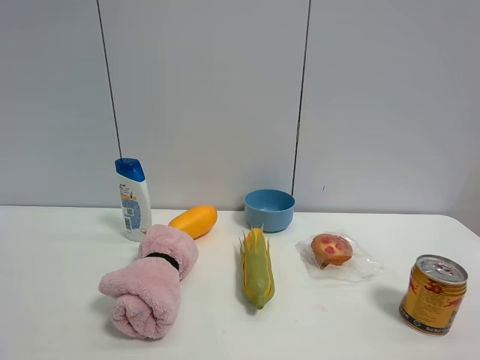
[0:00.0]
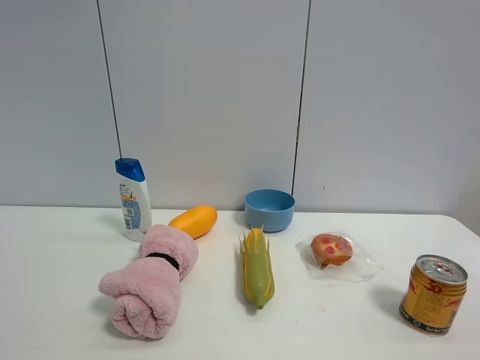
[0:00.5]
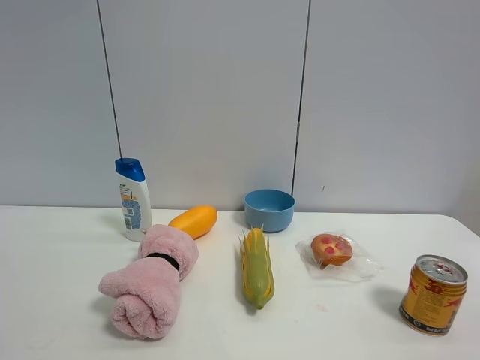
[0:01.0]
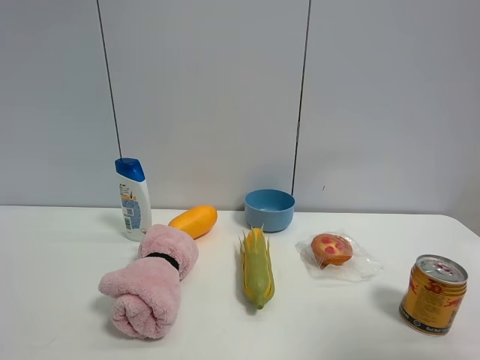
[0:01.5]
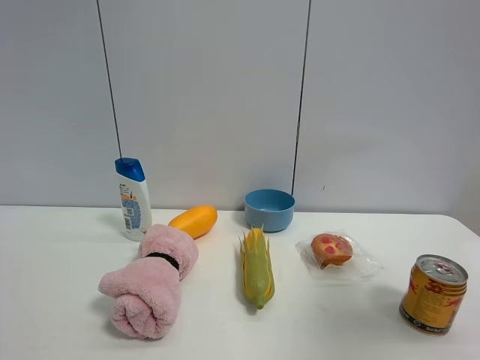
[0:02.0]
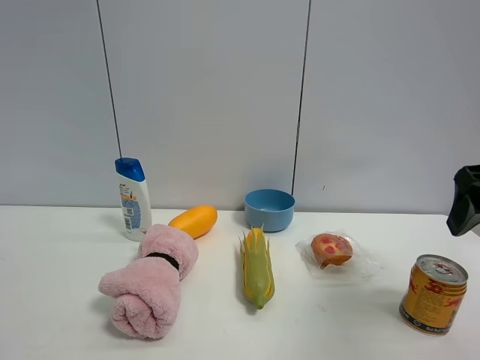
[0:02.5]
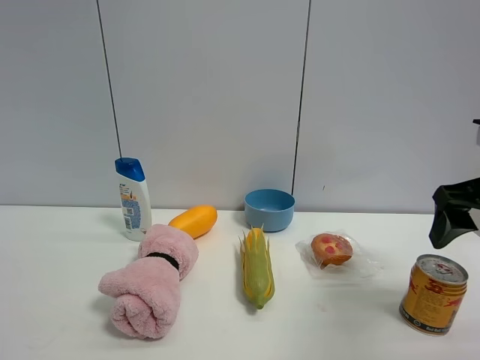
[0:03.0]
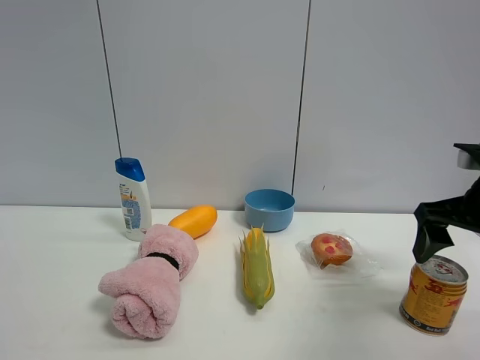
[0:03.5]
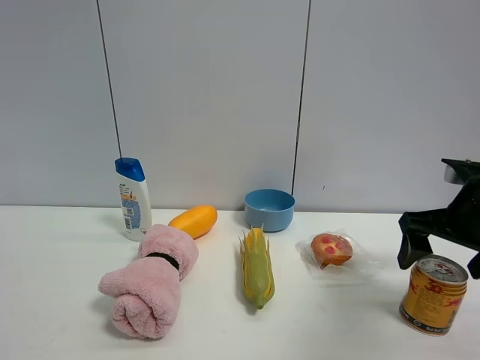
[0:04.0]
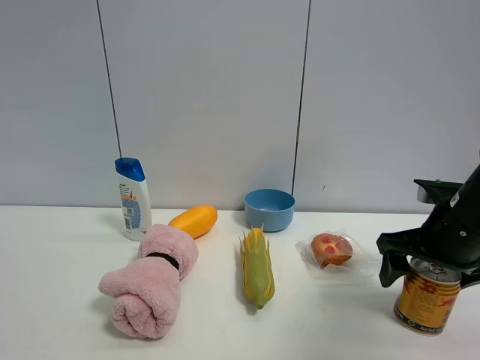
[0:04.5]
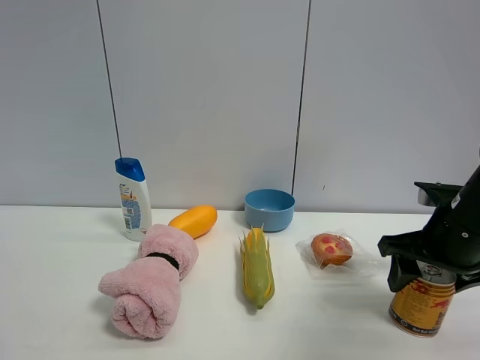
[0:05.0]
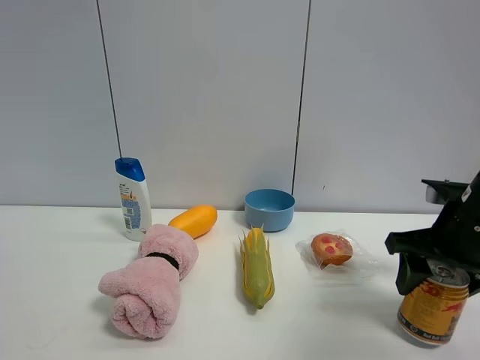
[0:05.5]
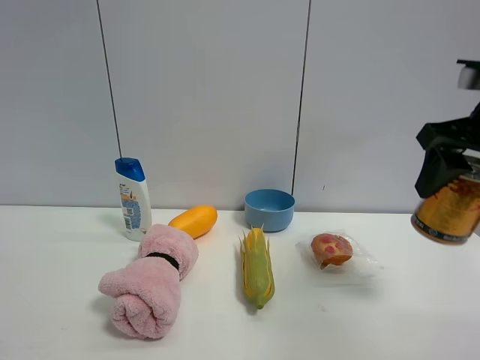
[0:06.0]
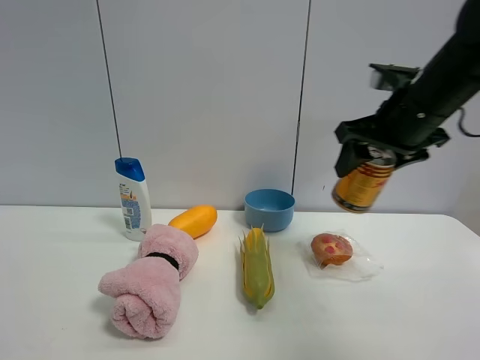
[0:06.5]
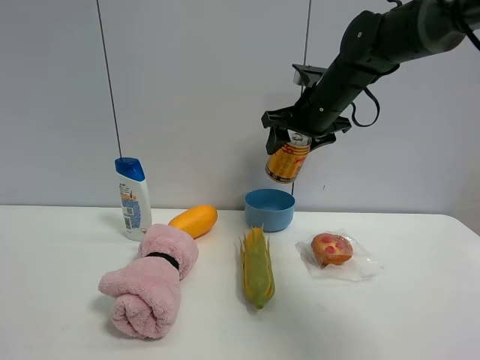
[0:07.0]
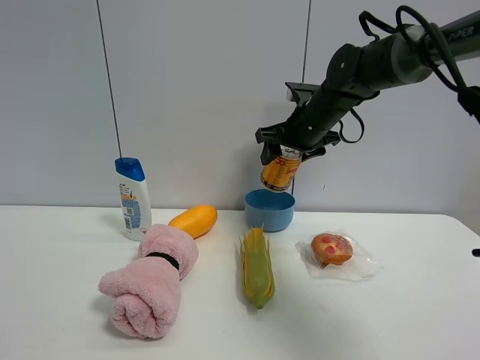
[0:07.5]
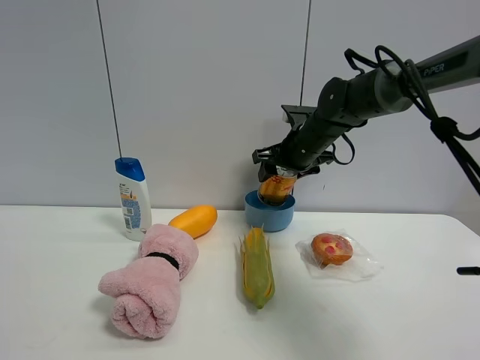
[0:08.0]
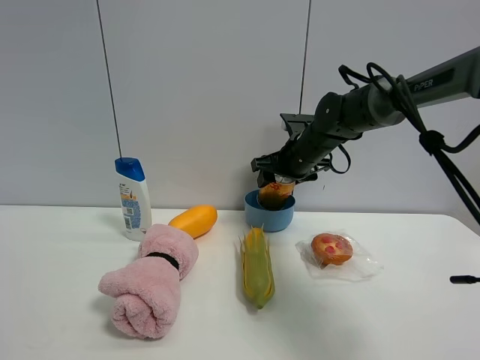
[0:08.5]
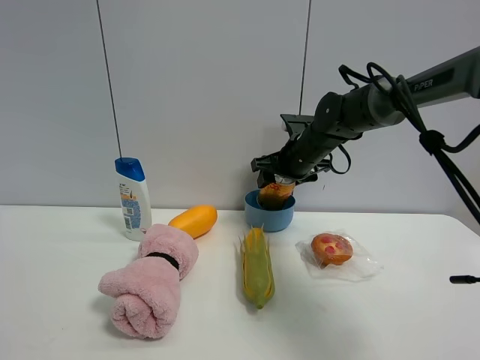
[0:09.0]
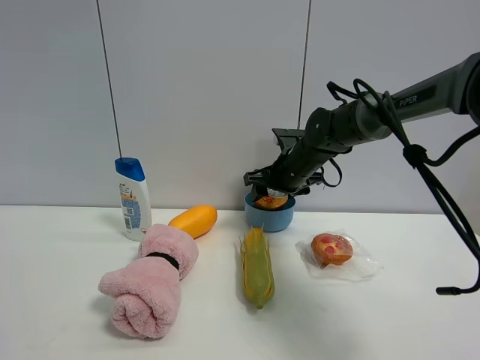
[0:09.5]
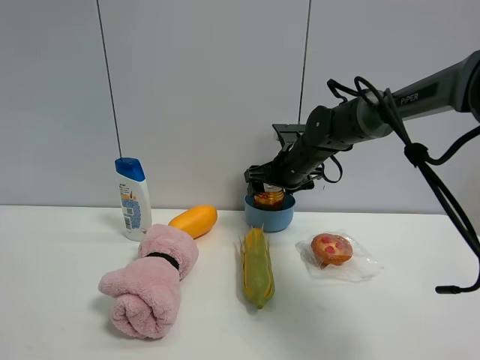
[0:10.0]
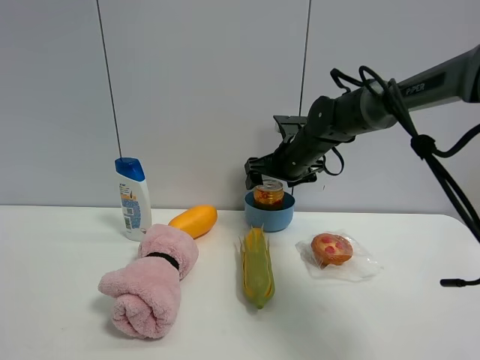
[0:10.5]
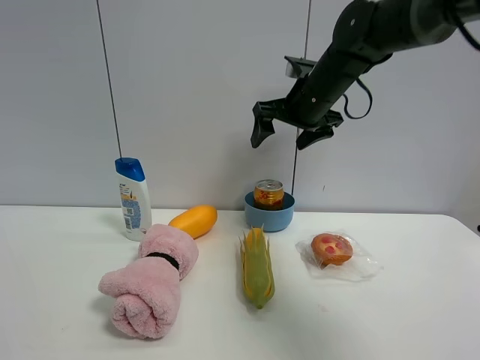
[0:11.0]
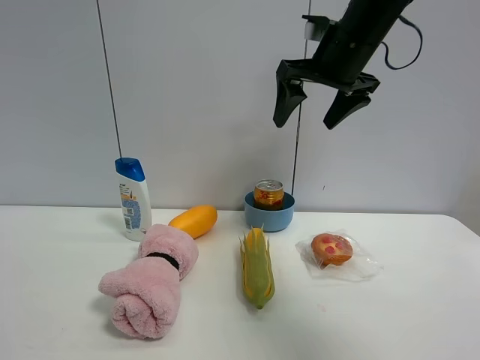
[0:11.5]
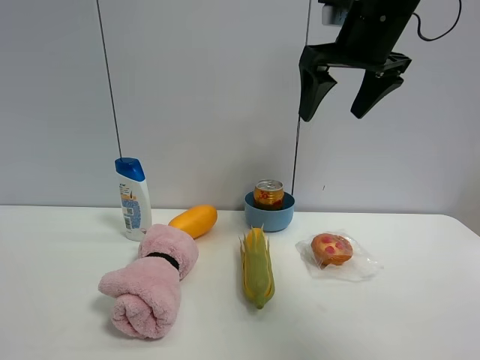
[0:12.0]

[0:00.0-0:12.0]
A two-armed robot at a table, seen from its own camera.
Task of the whole recording: the gripper move the object.
Step, 0:00.0 to 0:05.0: Grasp the red bull with the right gripper.
Step, 0:05.5 to 0:10.5: Place the red bull into the blue bowl with the right gripper.
0:00.0 to 0:02.0: The right gripper travels forward by roughly 20 cm.
0:02.0 to 0:04.0: The right gripper moves downward and forward, some 15 cm.
0:04.0 to 0:06.0: The right gripper goes some 10 cm upward, and closes its fingers.
0:06.0 to 0:08.0: The right gripper travels forward, to the left and downward by some 30 cm.
0:08.0 to 0:10.0: The right gripper opens up.
0:10.0 to 0:12.0: The right gripper moves upward and backward, roughly 25 cm.

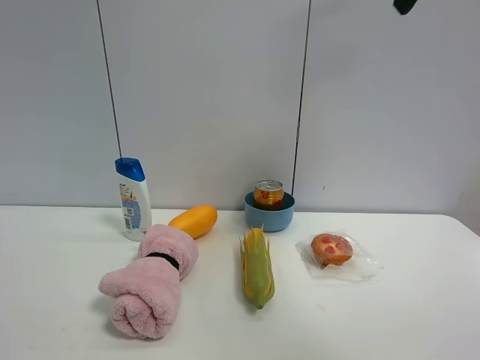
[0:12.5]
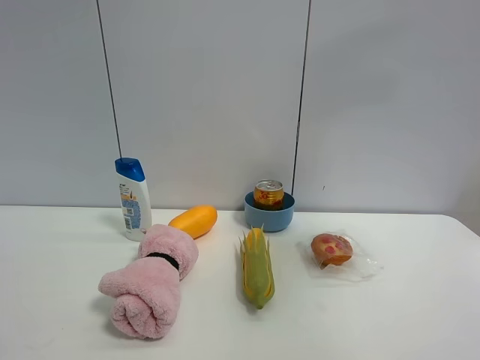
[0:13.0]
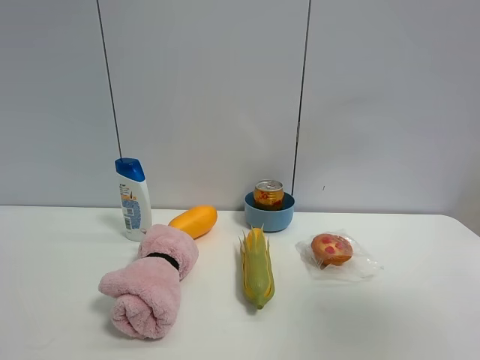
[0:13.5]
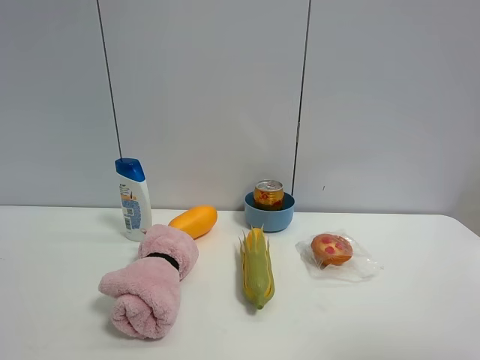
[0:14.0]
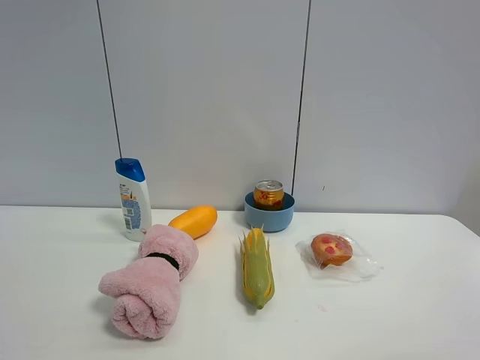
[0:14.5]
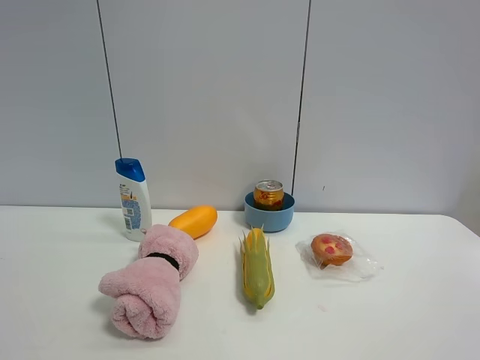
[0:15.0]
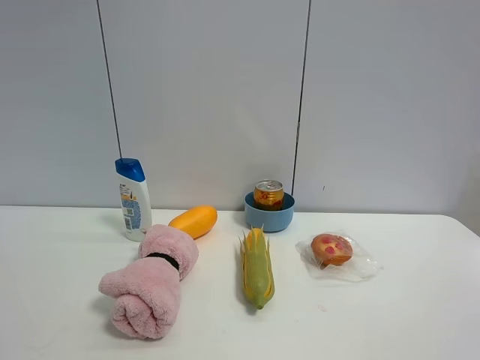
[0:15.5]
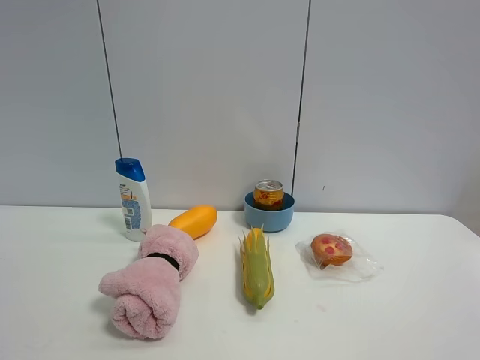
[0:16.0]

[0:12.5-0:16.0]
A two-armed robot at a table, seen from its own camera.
Task of the whole recording: the gripper move the object.
0:12.5 to 0:14.5: The right gripper shifts about 35 cm backward and downward.

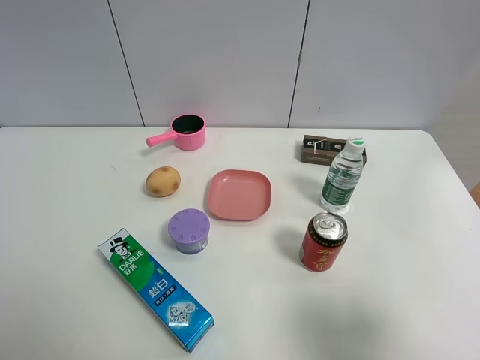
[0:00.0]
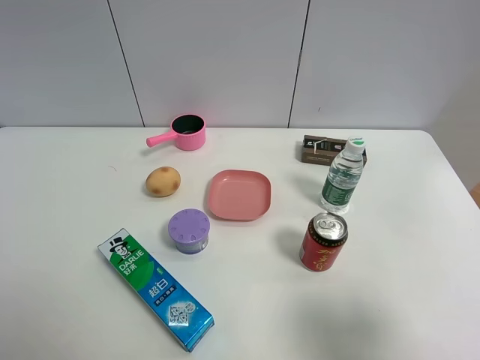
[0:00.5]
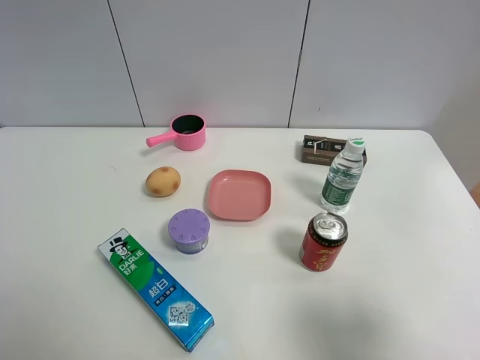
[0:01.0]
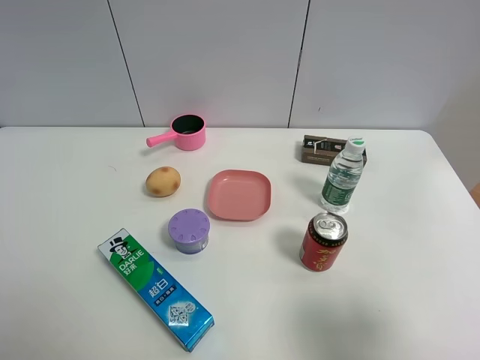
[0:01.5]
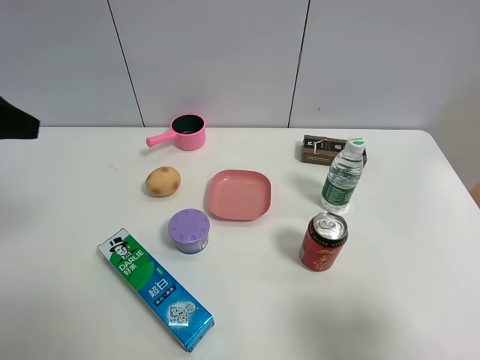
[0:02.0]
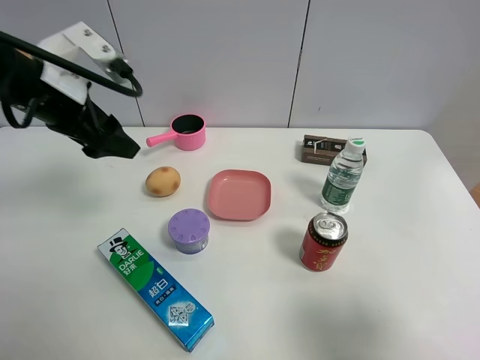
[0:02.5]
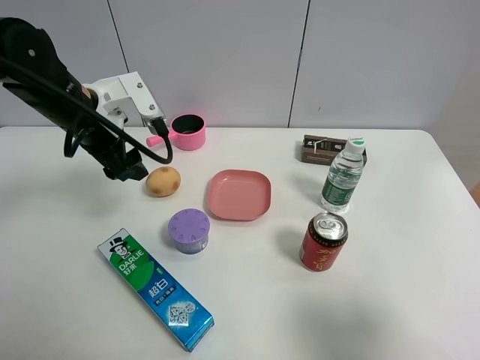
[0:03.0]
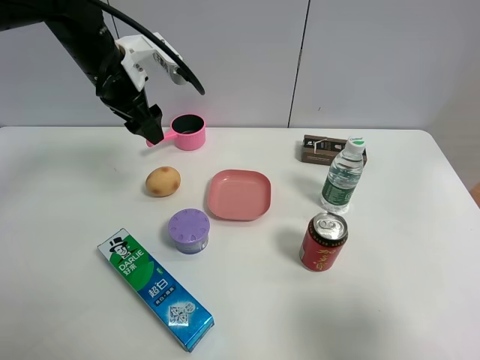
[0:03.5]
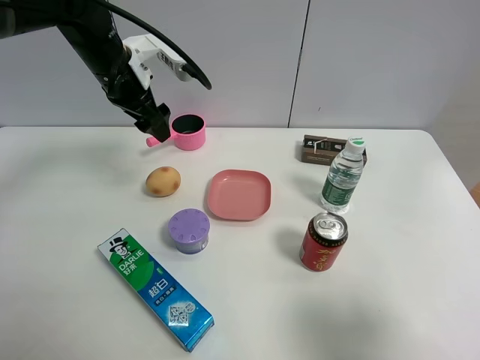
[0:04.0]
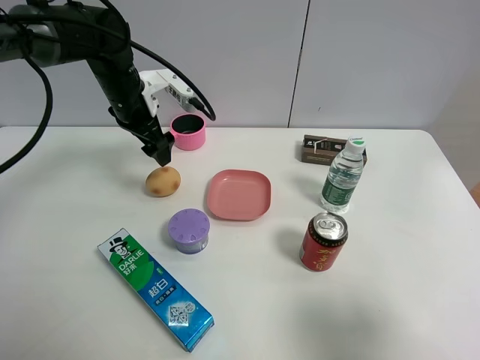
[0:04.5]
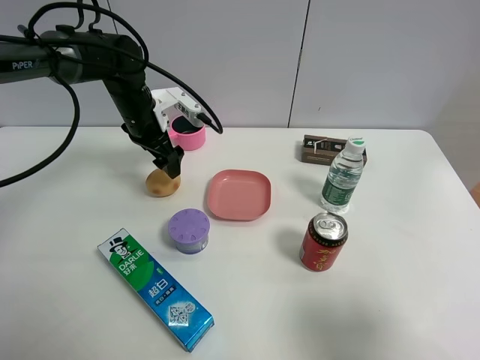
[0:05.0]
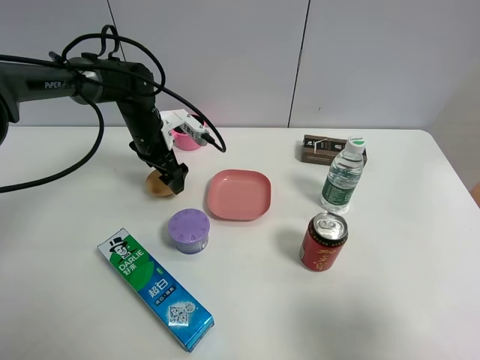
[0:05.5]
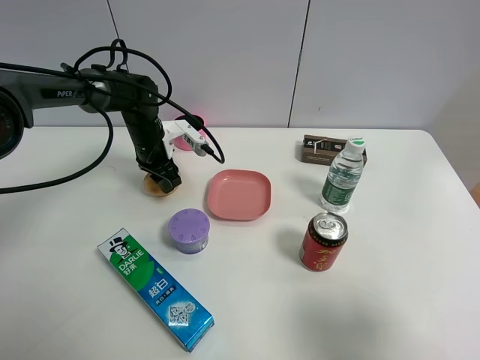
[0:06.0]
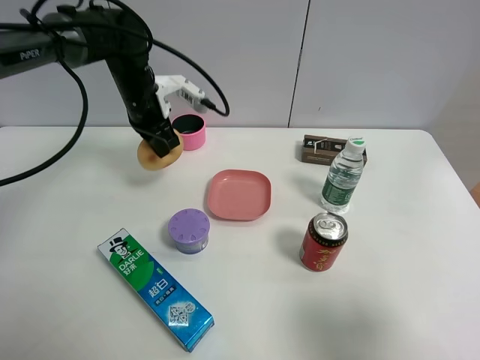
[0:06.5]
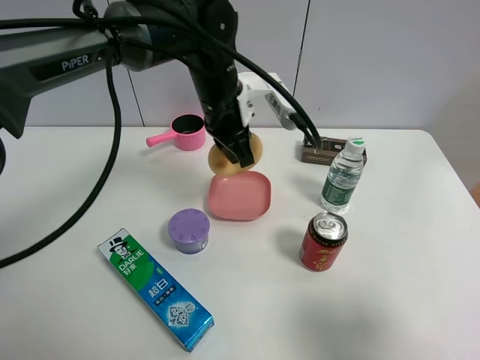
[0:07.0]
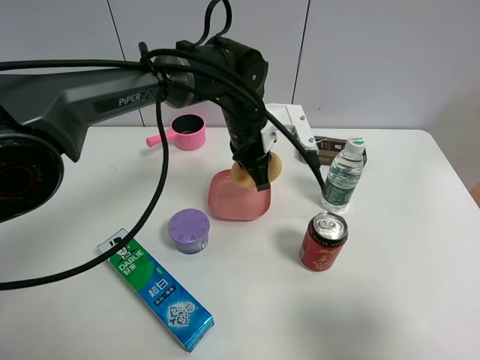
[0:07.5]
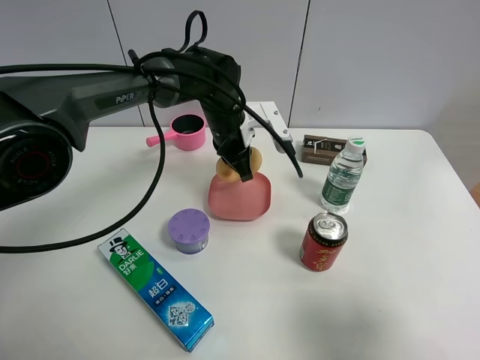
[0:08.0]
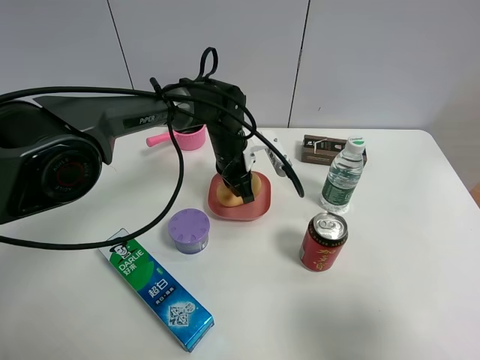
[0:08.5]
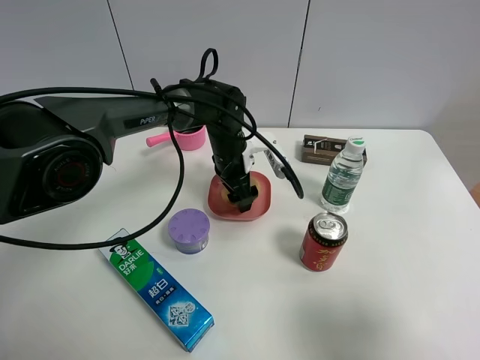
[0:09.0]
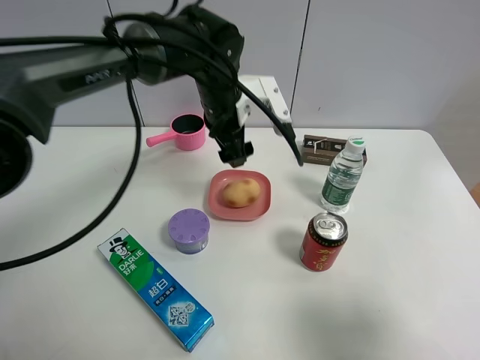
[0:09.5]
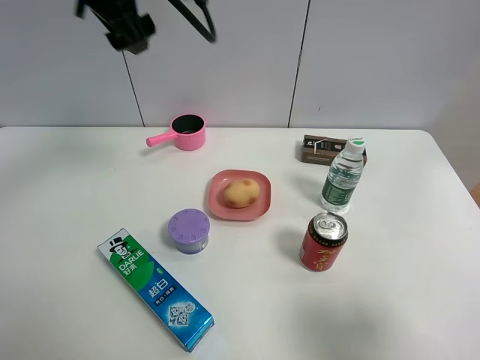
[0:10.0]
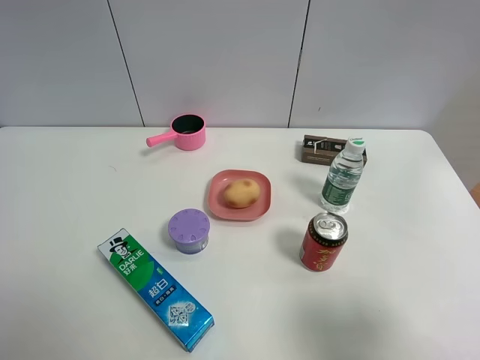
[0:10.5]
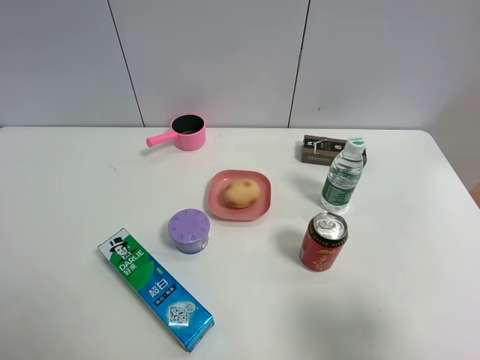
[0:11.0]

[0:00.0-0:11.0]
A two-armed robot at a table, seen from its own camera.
Task of the whole recording: the gripper move the object.
Step, 0:00.0 to 0:06.0: Grasp the egg yolk pastry with the left gripper.
0:00.0 to 0:02.0: The left gripper shifts approximately 20 cm forward.
0:02.0 to 0:03.5: The left gripper travels forward, to the right and downward by some 25 cm.
0:03.5 to 0:05.5: The left gripper moves downward, about 15 cm.
0:05.5 to 0:07.5: The left gripper heads to the right, covering about 20 cm, and closes its fingers.
0:07.5 to 0:09.0: The left gripper heads downward, covering some 5 cm, and opens.
0:09.0 to 0:11.0: The left gripper goes about 60 cm upward, backward and to the left.
